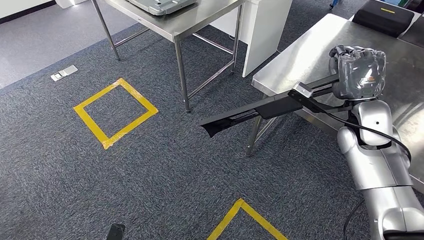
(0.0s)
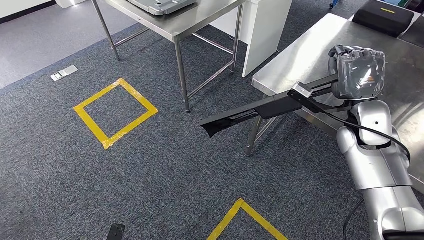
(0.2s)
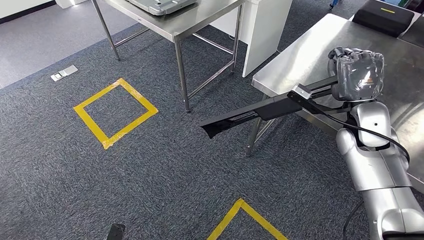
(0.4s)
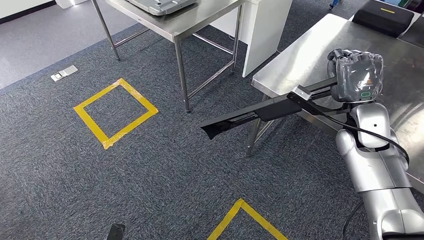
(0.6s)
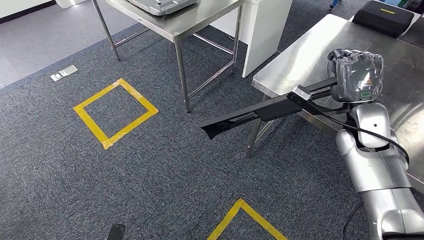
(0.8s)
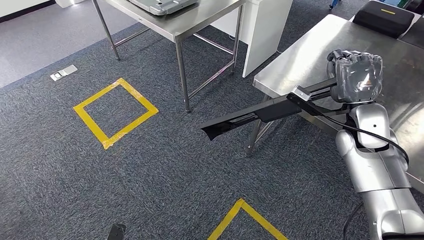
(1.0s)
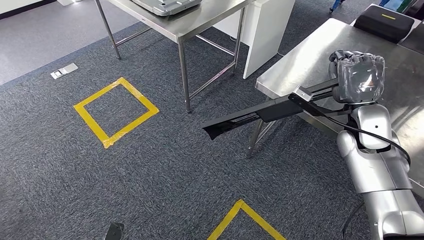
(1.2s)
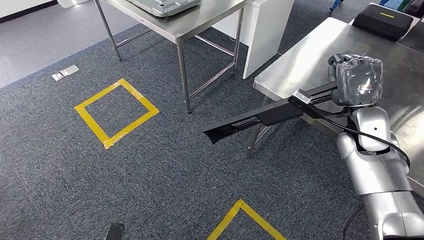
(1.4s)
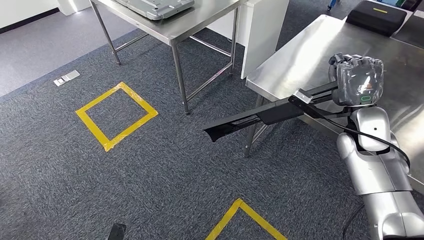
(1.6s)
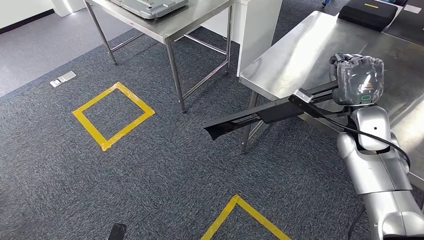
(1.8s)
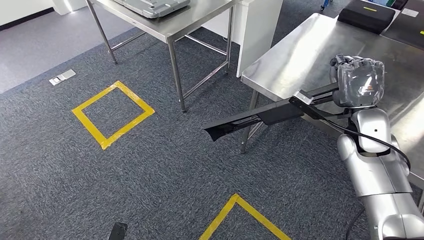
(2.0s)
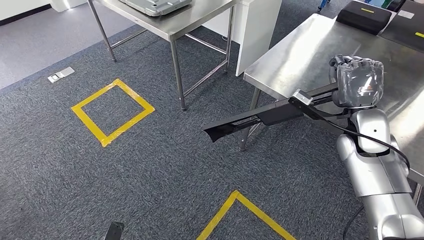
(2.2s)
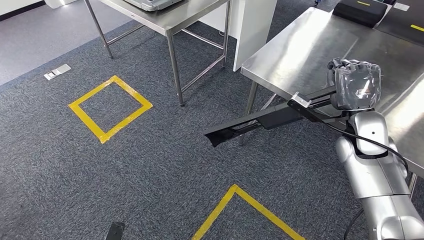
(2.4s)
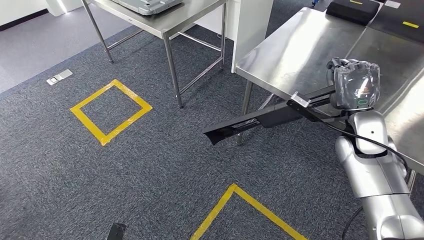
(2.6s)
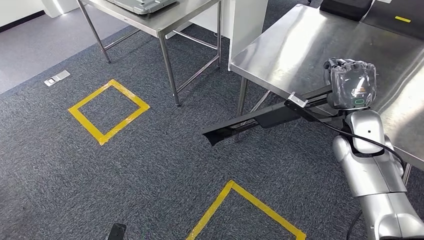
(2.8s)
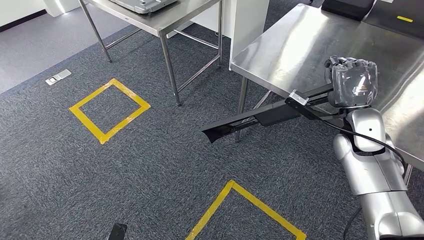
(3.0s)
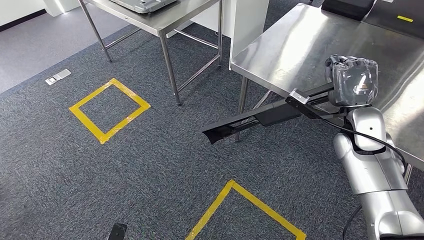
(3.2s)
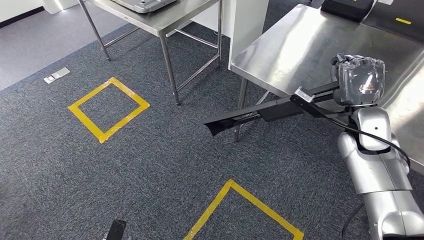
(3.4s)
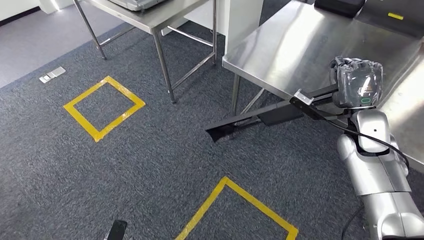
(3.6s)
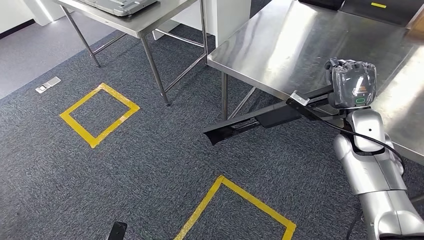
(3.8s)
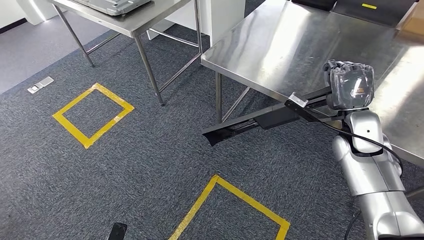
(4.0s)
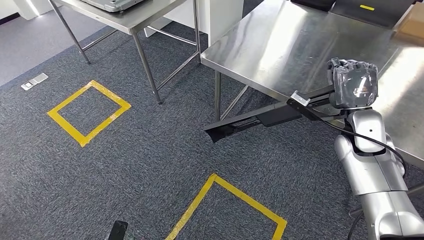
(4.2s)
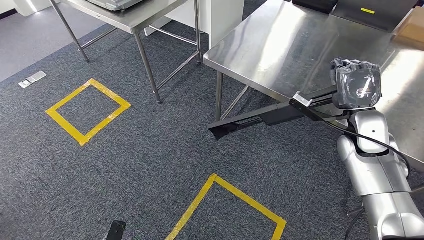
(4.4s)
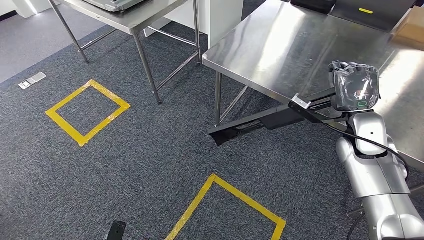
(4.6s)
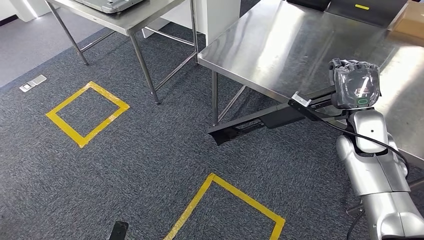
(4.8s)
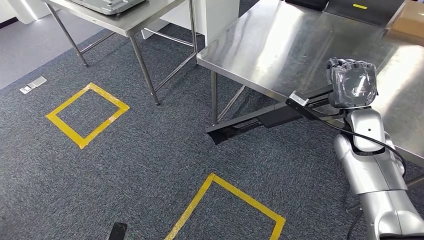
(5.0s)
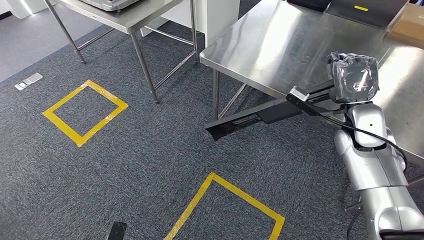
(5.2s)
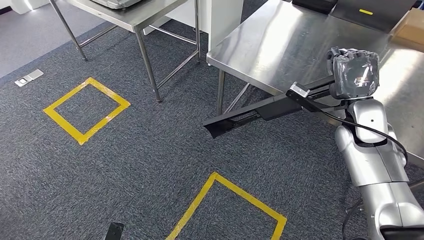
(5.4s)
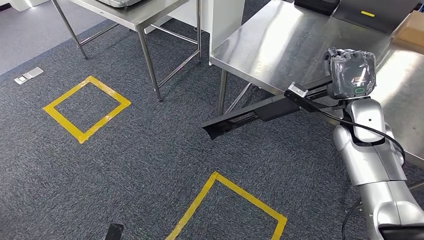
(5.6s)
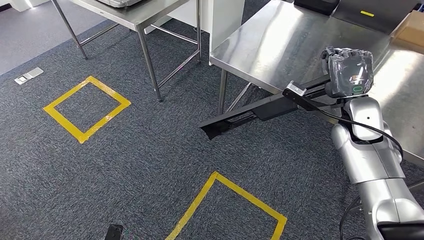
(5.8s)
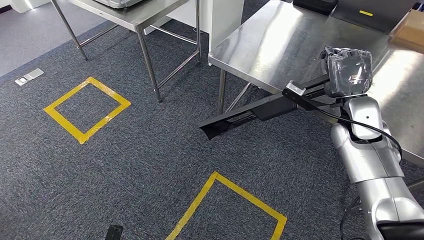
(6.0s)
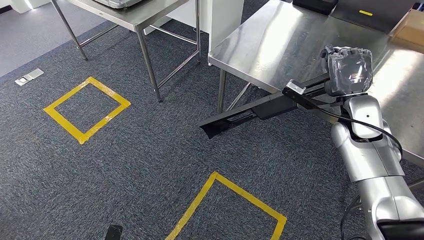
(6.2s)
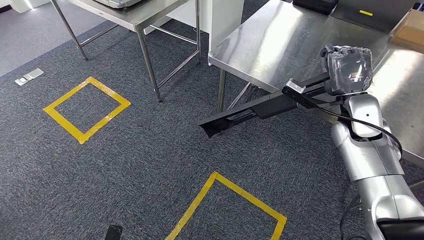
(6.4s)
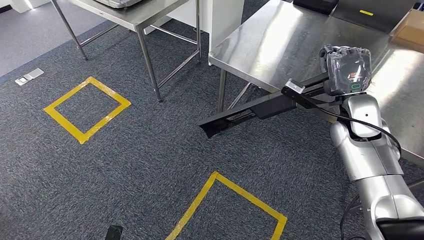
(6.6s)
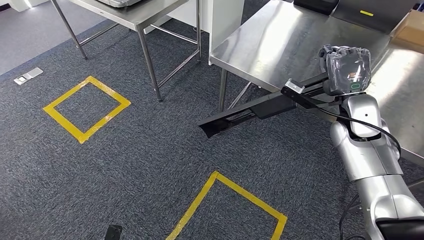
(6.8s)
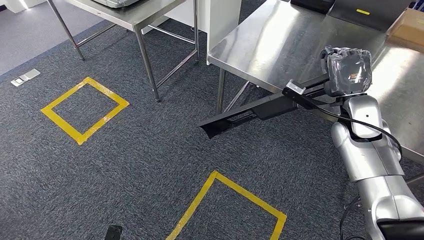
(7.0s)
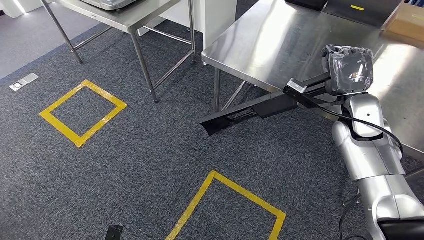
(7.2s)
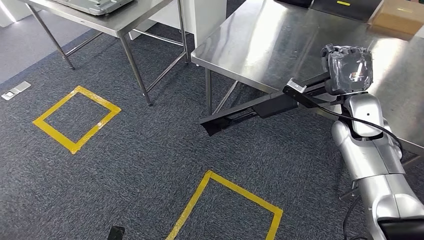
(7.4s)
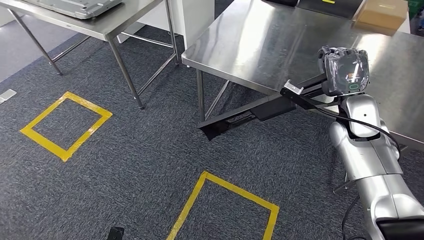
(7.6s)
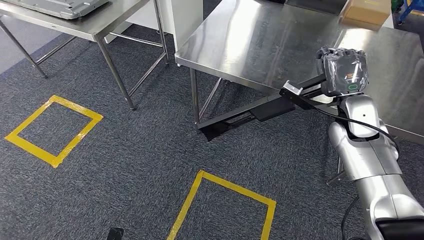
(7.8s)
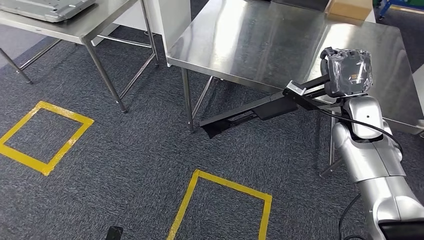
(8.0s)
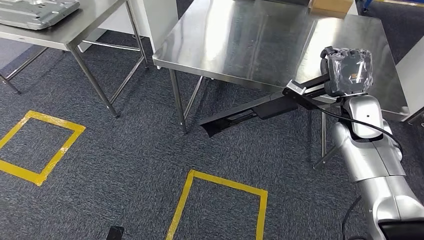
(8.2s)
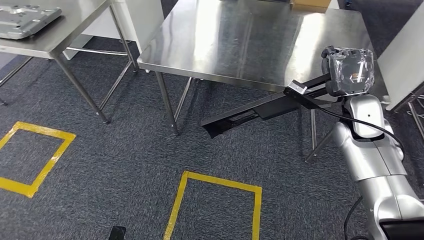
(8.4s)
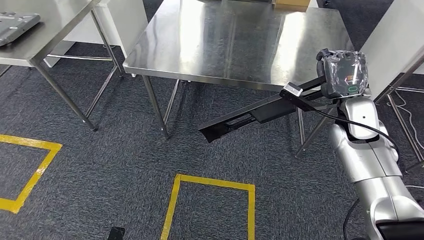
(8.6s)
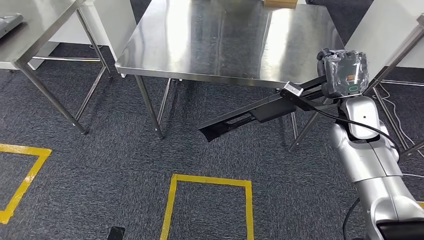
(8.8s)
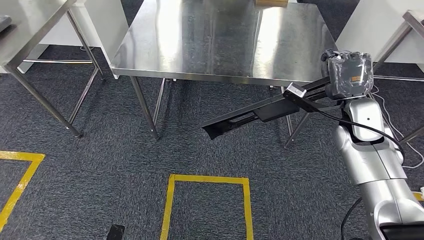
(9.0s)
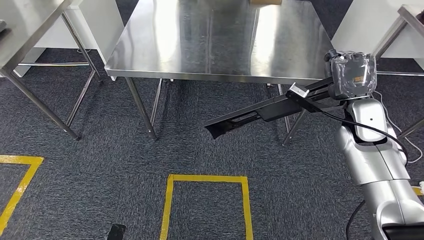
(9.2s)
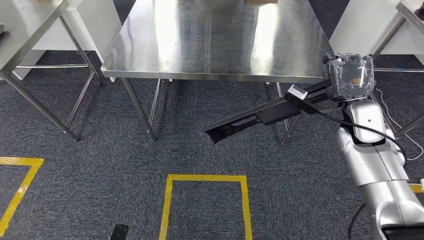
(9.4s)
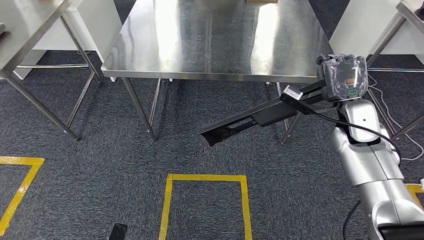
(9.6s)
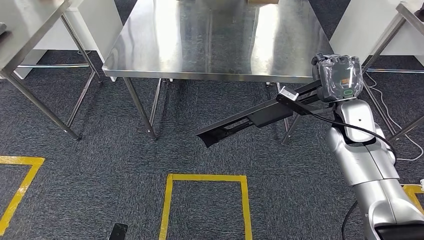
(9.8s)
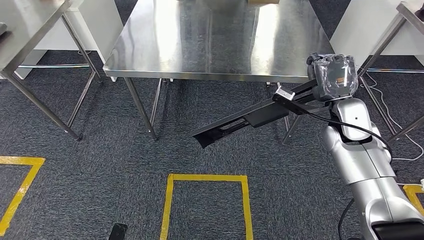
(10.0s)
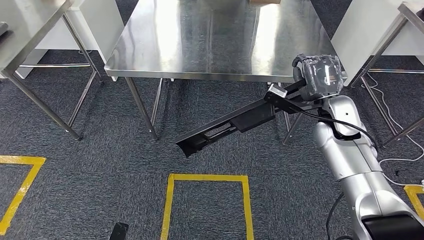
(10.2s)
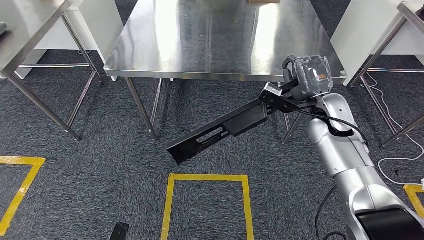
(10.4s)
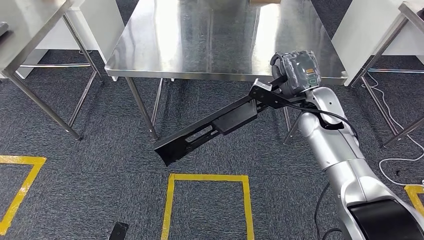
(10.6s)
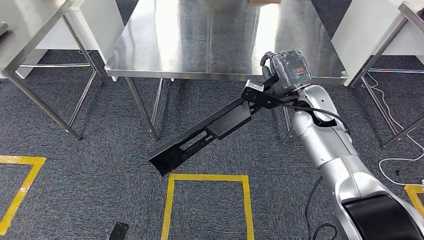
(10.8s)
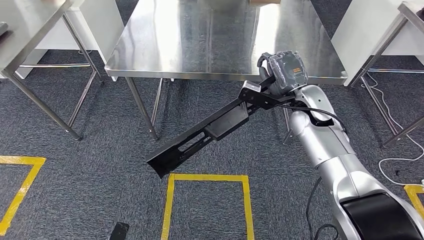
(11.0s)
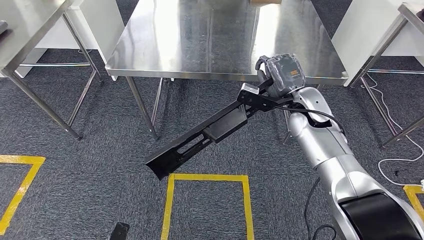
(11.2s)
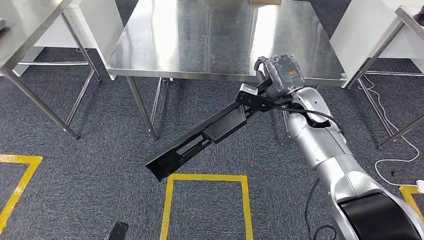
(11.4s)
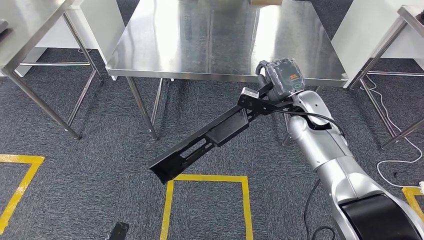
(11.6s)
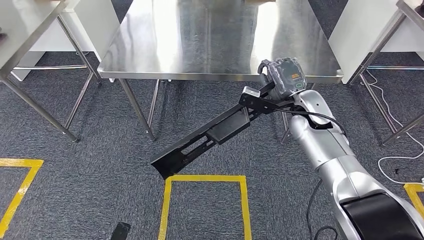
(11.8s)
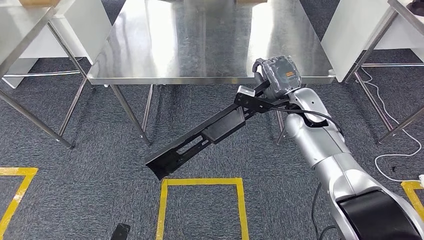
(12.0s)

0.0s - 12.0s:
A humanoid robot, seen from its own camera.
0.0s - 1.6s: The hands make only small movements.
4.4s - 6.0s: The hands move only a little.

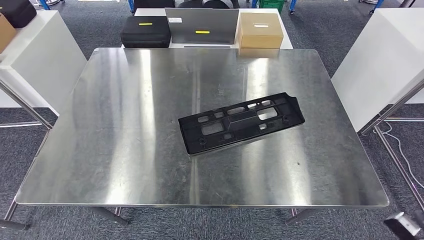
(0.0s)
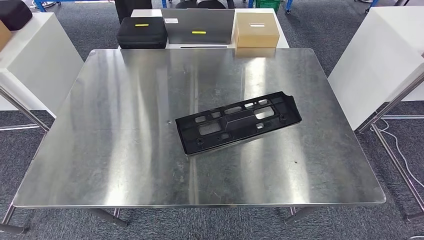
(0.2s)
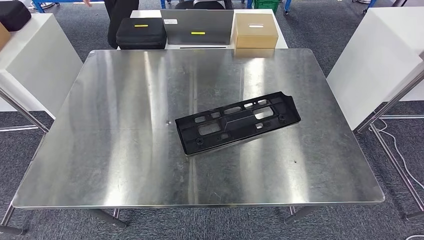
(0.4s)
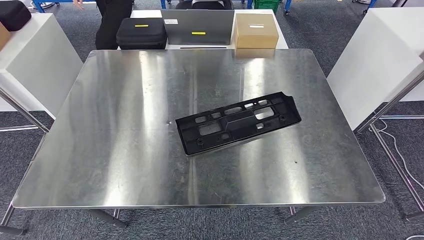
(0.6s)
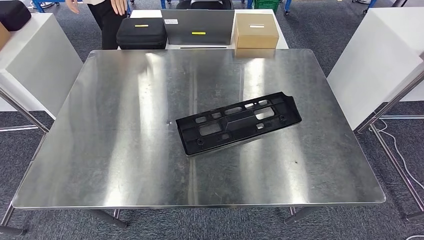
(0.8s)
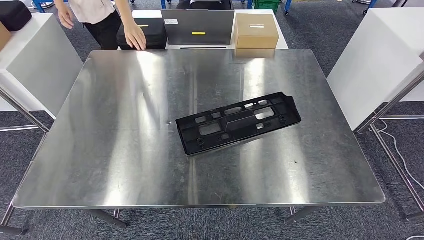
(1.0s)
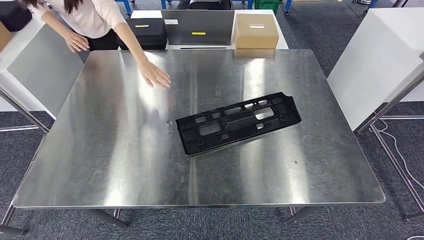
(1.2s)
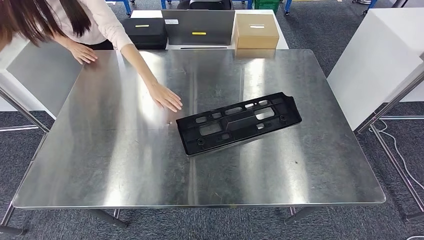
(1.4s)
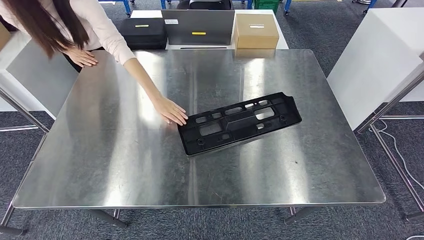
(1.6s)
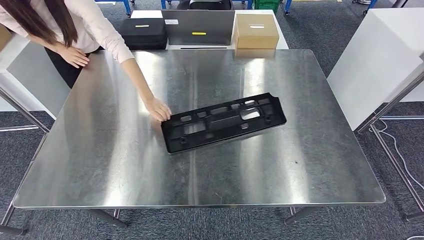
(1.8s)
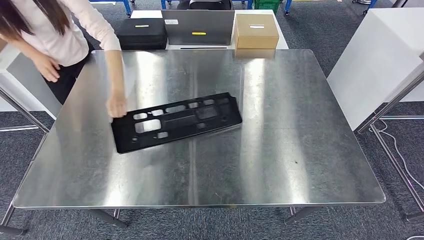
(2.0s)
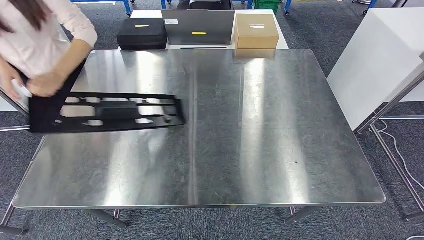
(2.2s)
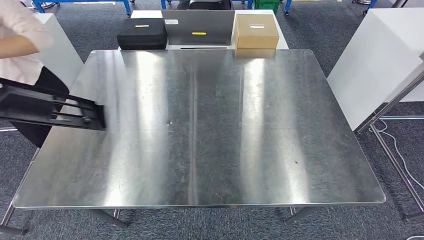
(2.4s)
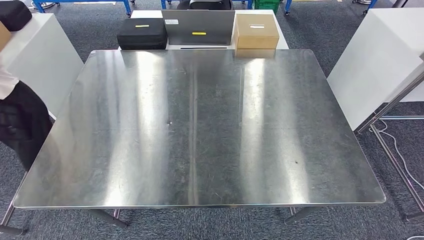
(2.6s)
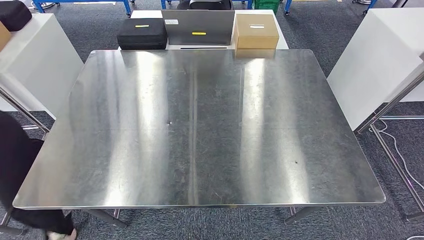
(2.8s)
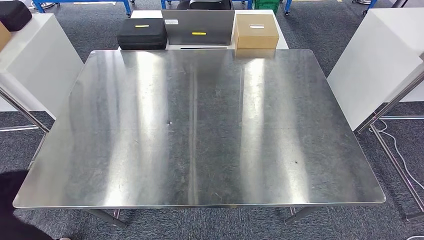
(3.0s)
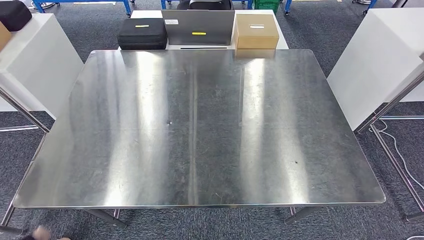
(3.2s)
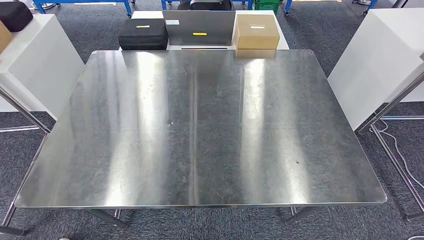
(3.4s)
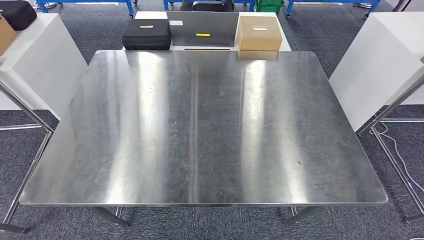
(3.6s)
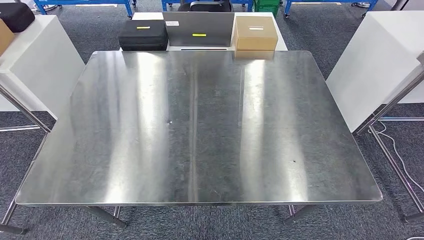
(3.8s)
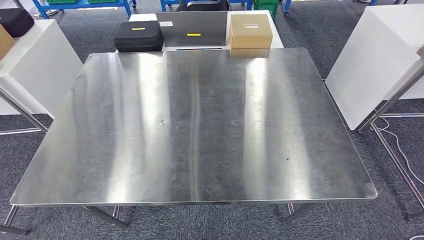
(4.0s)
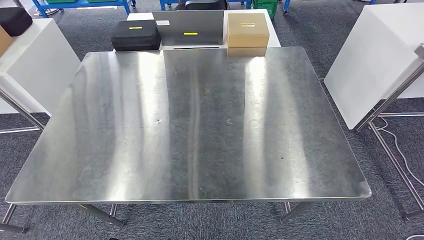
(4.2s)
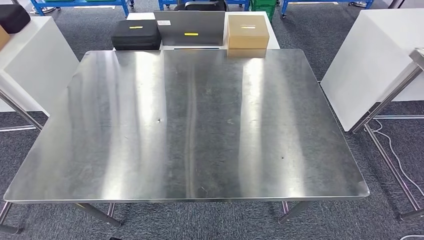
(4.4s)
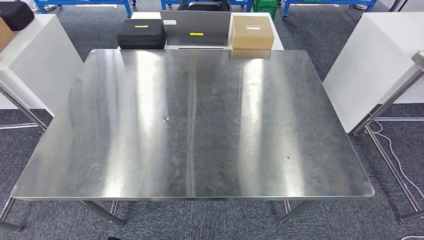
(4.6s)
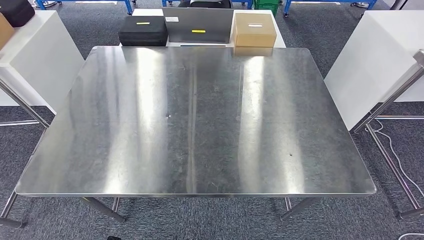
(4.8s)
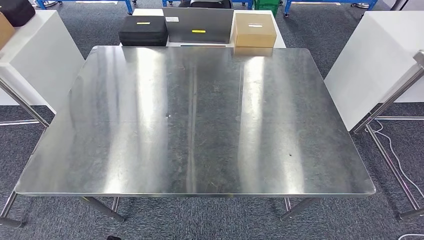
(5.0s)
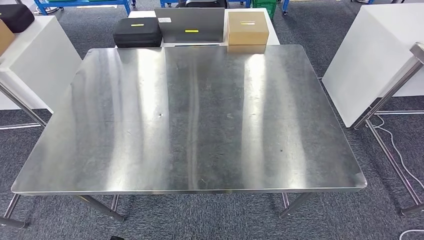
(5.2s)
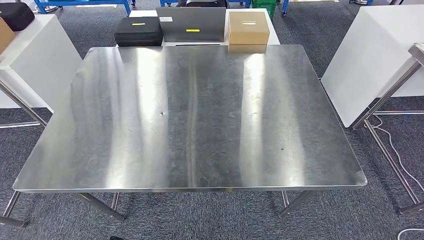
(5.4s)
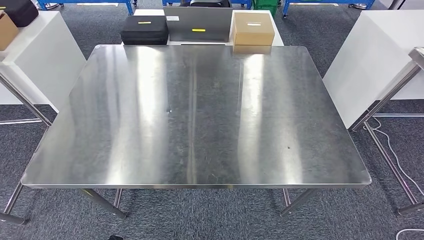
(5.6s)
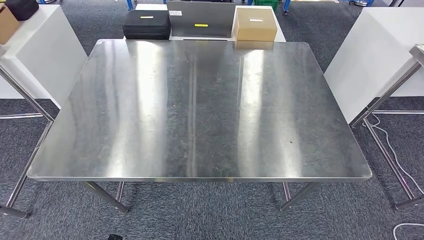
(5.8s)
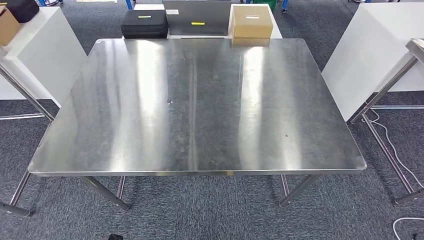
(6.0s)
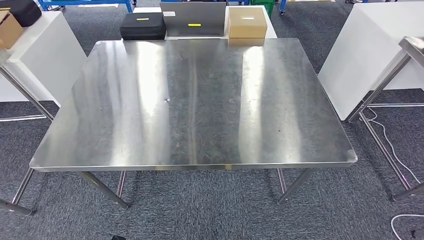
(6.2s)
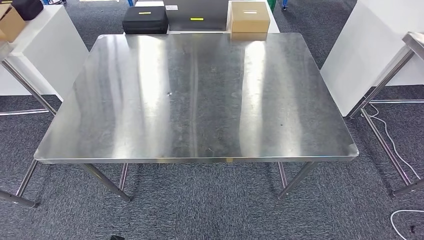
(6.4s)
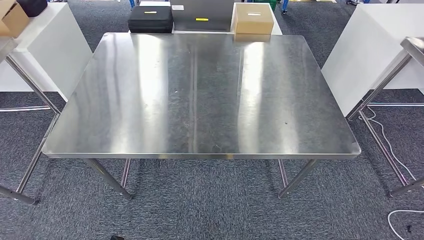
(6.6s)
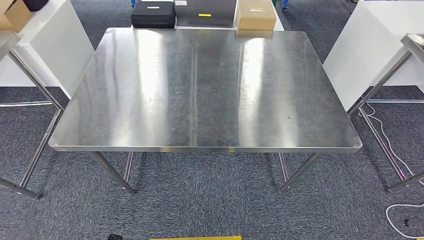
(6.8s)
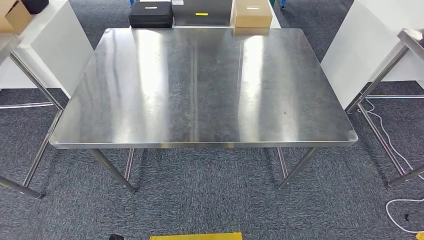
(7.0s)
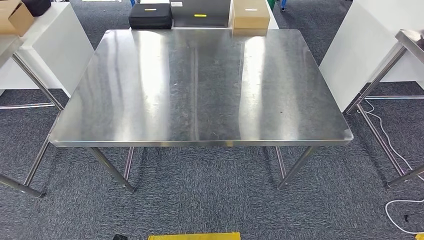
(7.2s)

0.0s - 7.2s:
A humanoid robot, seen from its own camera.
2.8s - 4.4s: Neither hand changes place.
